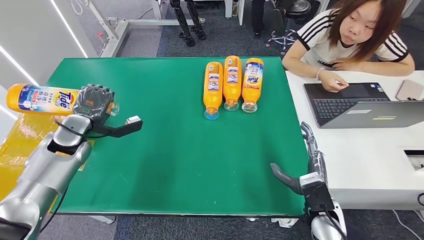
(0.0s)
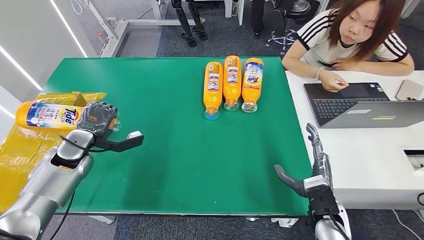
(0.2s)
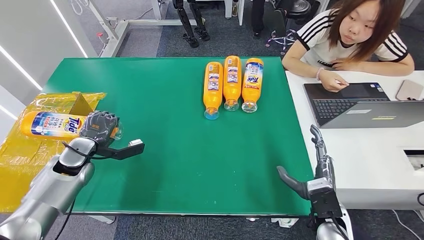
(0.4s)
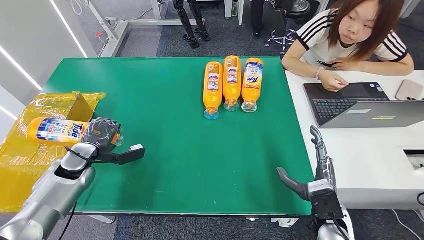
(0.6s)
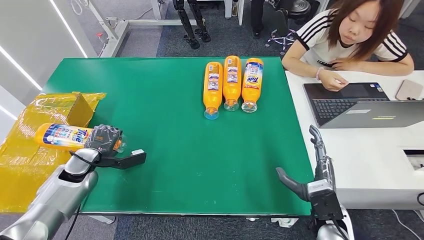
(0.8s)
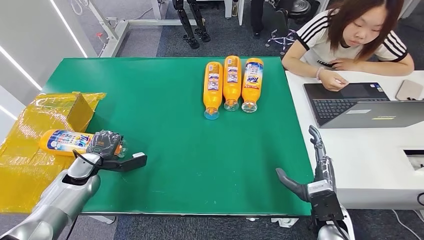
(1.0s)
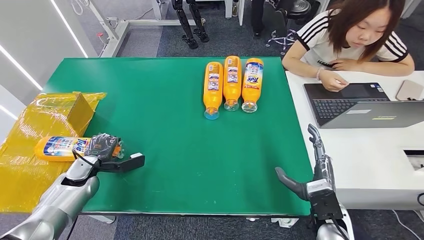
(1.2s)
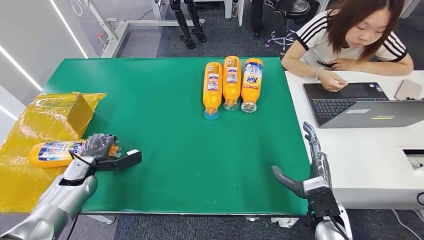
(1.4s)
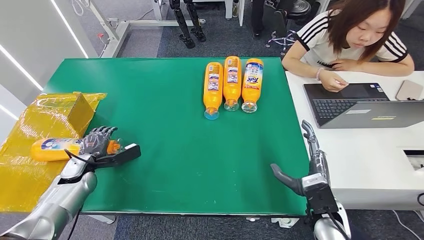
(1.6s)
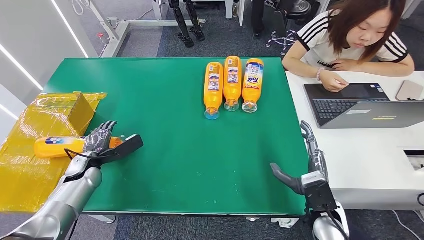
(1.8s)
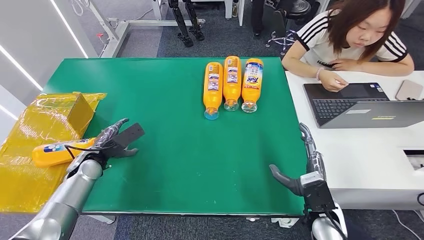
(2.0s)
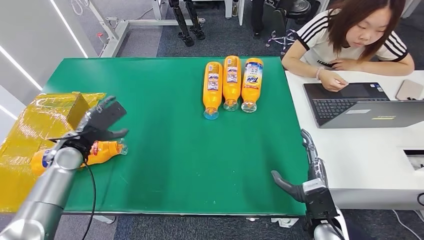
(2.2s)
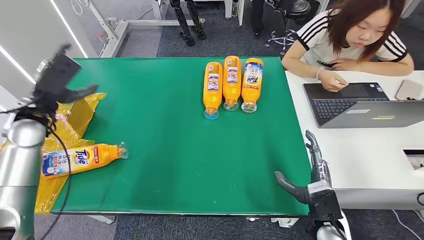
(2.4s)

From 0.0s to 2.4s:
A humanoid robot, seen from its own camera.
Step, from 0.0s to 2.2s: Turn the bottle to the front side.
From 0.0s to 1.2s: The left hand shifts some 15 cm downward and backward.
From 1.2s to 2.4s: The left hand goes approximately 20 cm upward.
